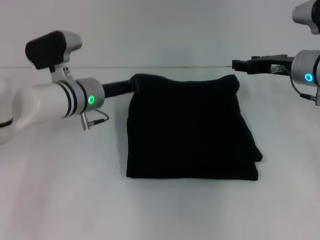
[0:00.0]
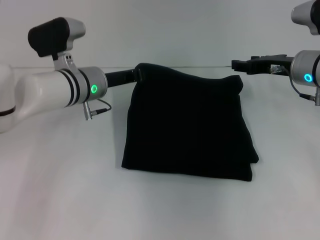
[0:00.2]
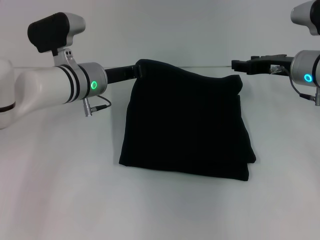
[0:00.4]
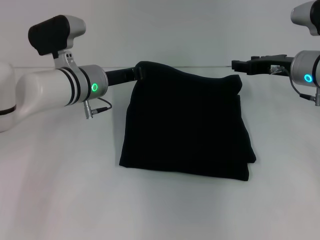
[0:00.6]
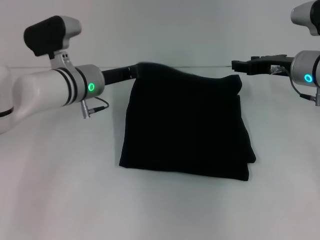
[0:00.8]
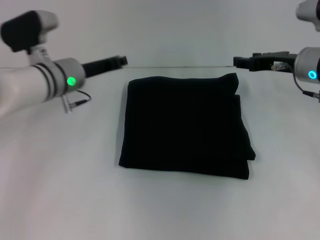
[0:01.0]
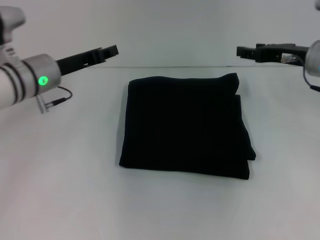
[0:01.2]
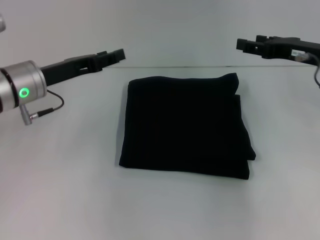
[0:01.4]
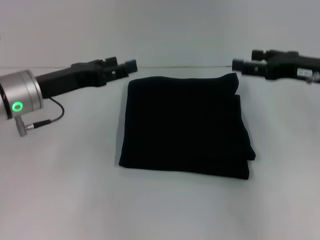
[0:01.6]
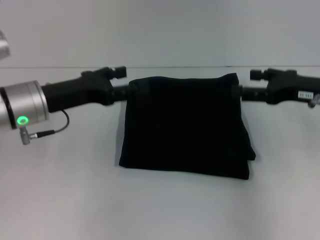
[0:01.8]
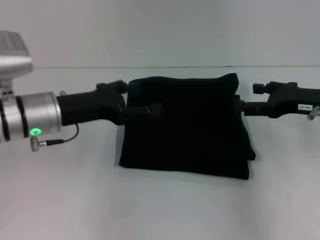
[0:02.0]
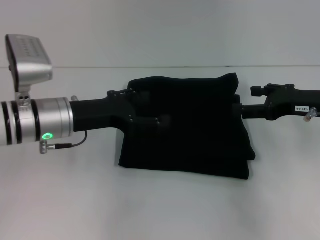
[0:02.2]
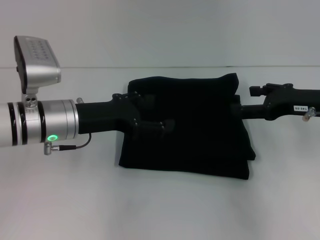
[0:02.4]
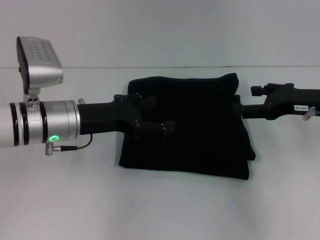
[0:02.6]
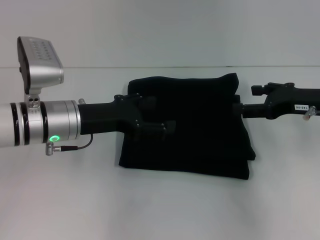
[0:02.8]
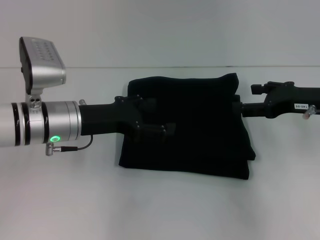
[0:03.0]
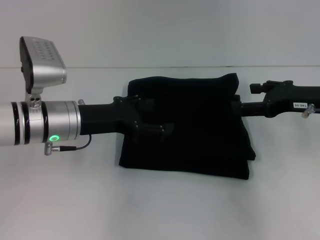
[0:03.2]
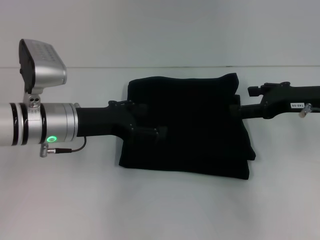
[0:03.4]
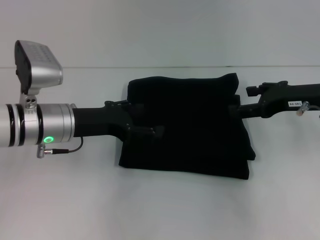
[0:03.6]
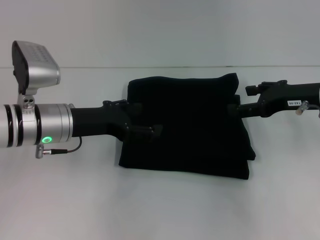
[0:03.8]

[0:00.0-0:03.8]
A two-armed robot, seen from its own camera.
0:00.0 to 0:01.2: The left gripper is displaced to the left by some 5 cm.
0:01.2 to 0:02.6: Both grippers travel together backward, approximately 5 cm. The left gripper opens its fingers.
0:02.6 to 0:03.8: There are only small adjustments of the grippers.
